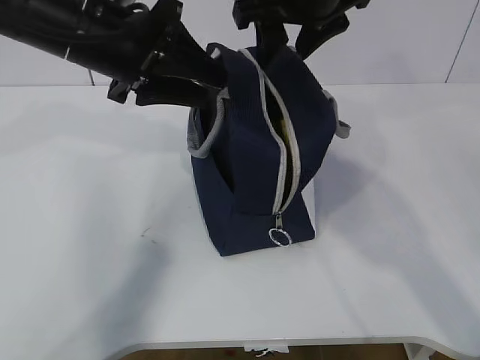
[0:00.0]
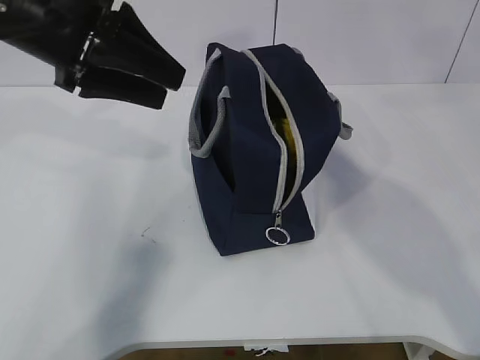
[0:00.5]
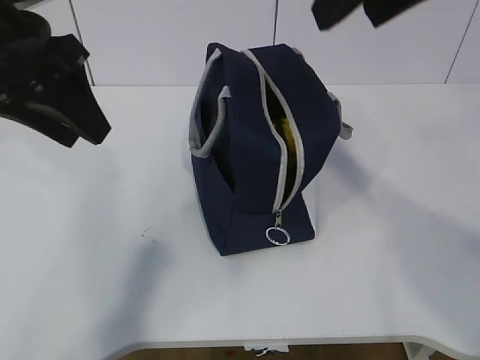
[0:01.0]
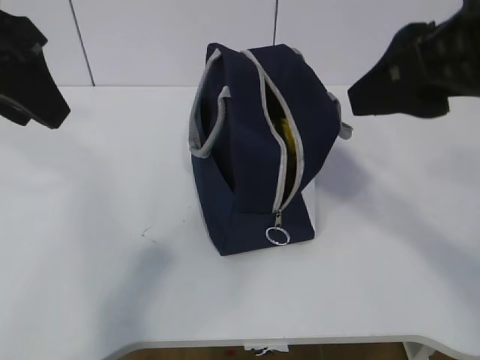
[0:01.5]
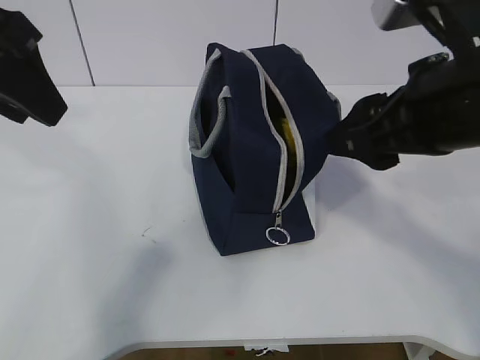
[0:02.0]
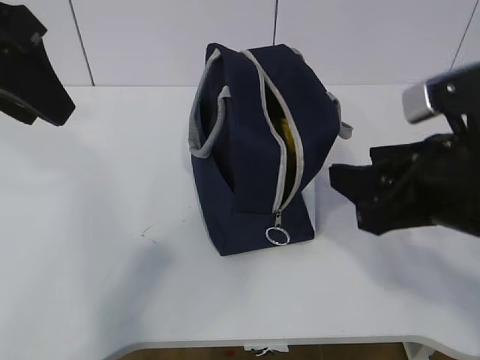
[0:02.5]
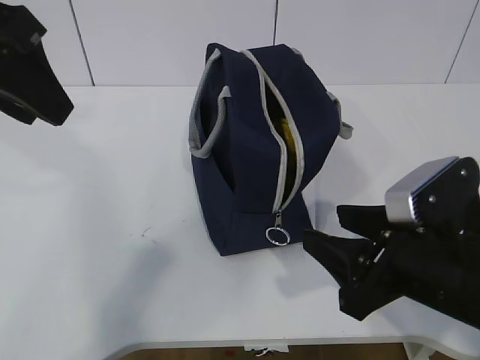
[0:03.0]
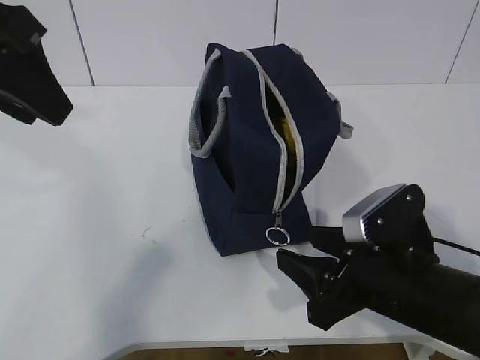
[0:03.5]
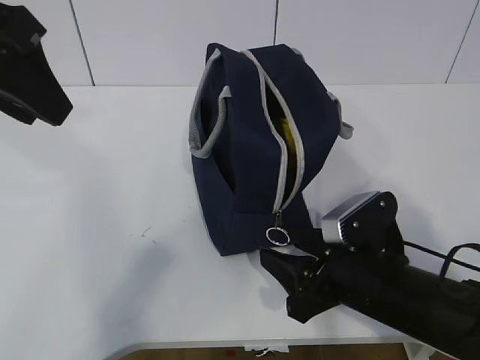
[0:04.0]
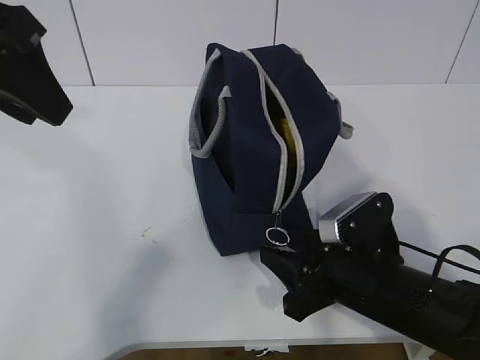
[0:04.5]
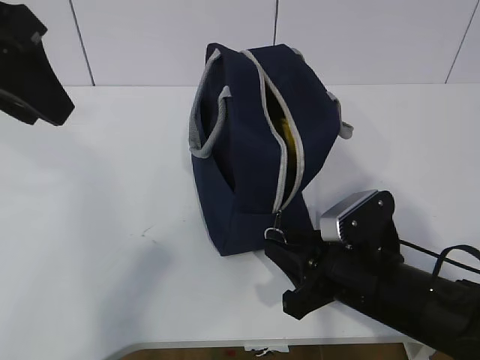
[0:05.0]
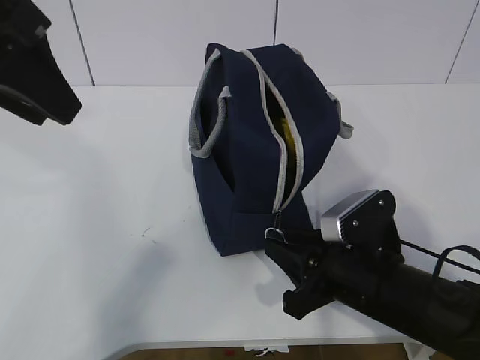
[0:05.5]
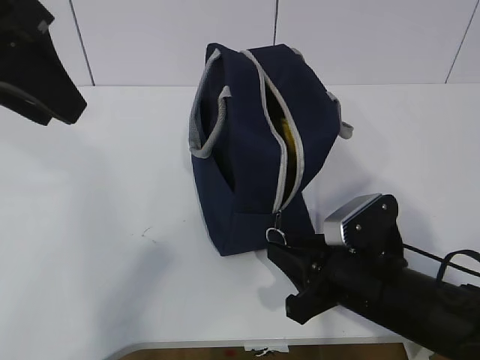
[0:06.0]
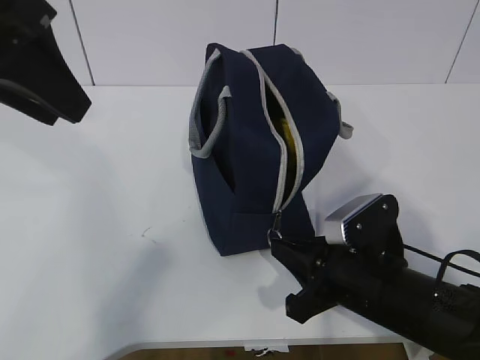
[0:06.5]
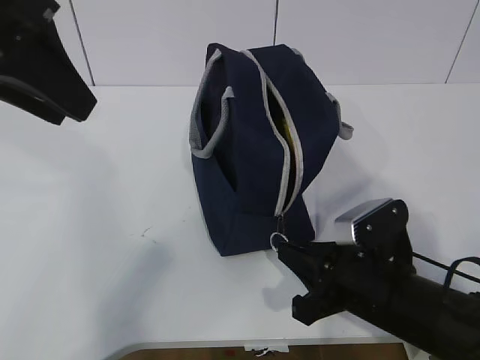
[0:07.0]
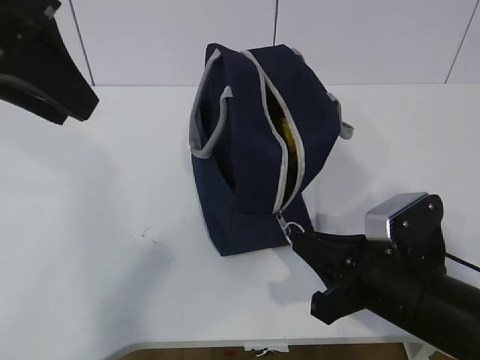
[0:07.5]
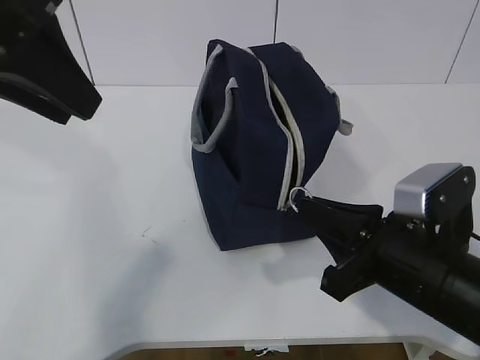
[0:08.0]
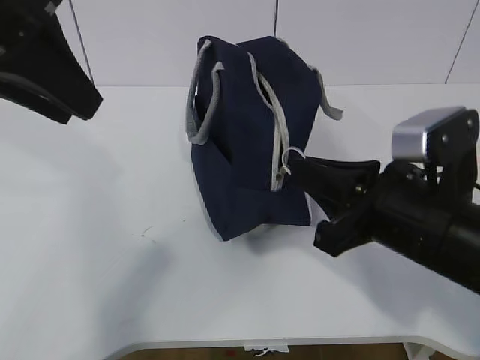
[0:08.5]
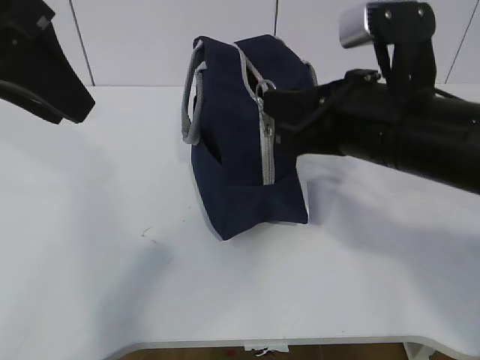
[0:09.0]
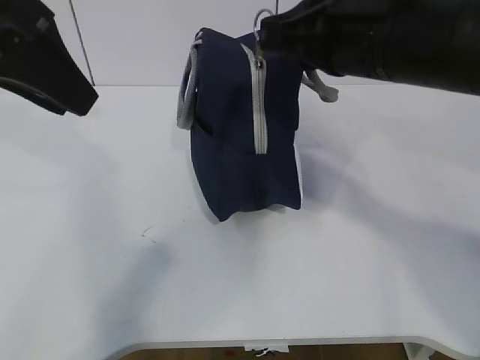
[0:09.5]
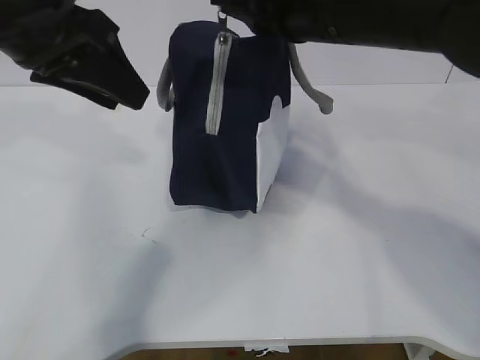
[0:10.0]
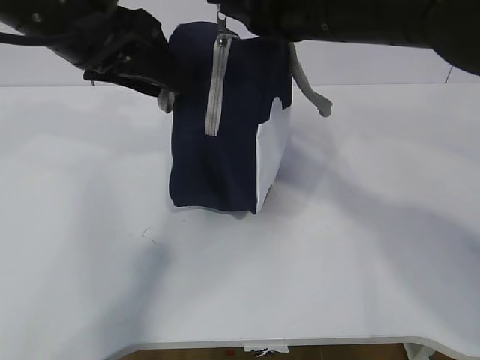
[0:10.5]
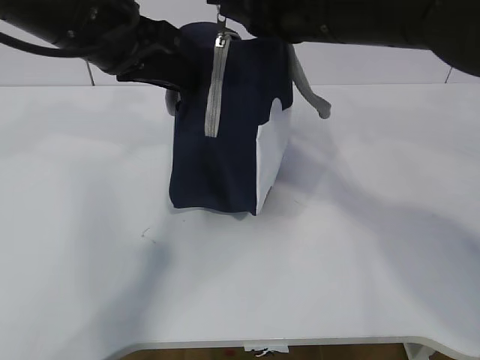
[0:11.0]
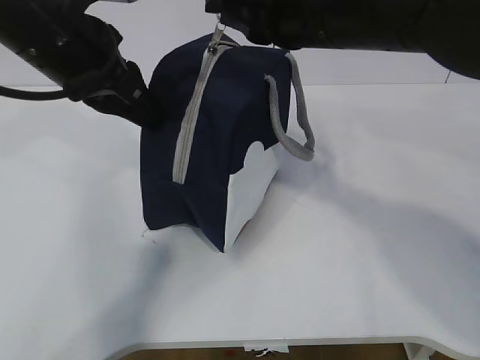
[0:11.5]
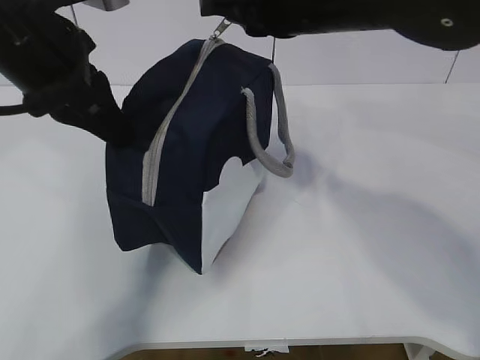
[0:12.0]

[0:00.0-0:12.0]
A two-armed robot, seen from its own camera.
Step, 0:00.0 to 0:04.5: Grab the lunch bag with your left hand.
Step, 0:05.5 to 0:08.0: Pull the zipper with your right hand.
Step, 0:08.5 to 0:10.0: Grab the lunch bag with your left hand.
0:00.0 to 0:02.0: The left gripper shifts roughly 15 cm backward, upward and to the left, while the right gripper heads backward and to the right, covering about 20 cm.
0:02.0 to 0:04.0: The right gripper heads downward, covering some 20 cm.
0:04.0 to 0:06.0: The right gripper closes up.
0:06.0 to 0:08.0: The right gripper moves upward, approximately 5 cm.
0:08.0 to 0:10.0: The left gripper changes place by some 5 cm, while the right gripper heads upward and forward, covering approximately 20 cm.
0:10.0 to 0:12.0: The left gripper closes up.

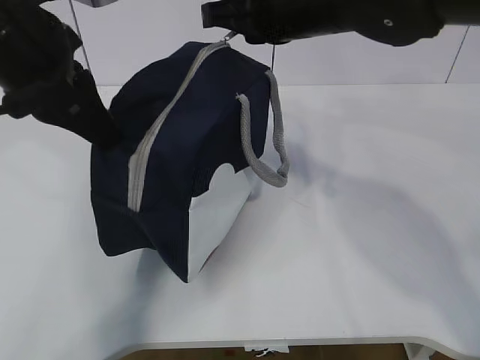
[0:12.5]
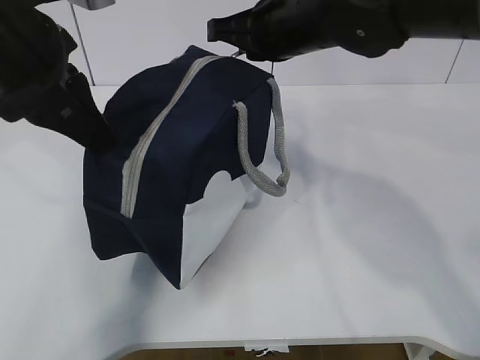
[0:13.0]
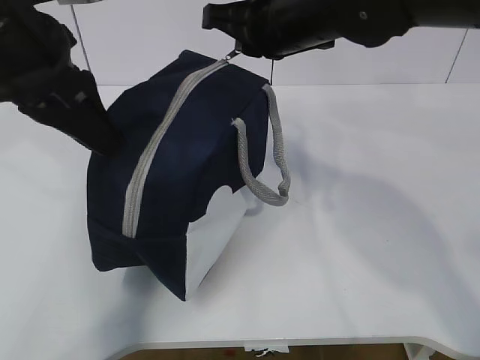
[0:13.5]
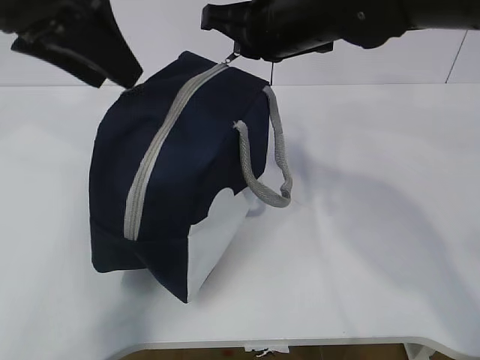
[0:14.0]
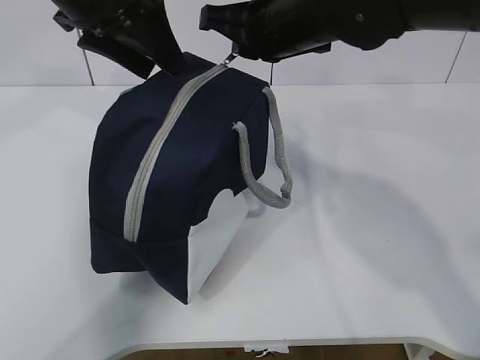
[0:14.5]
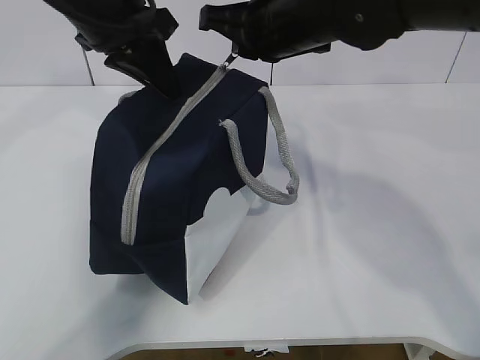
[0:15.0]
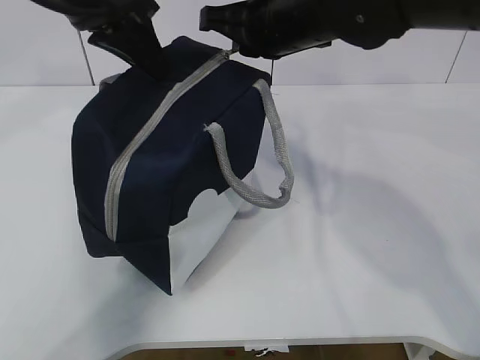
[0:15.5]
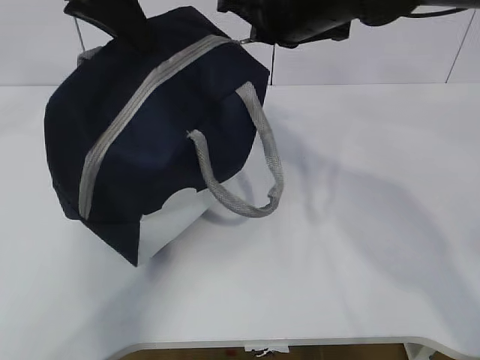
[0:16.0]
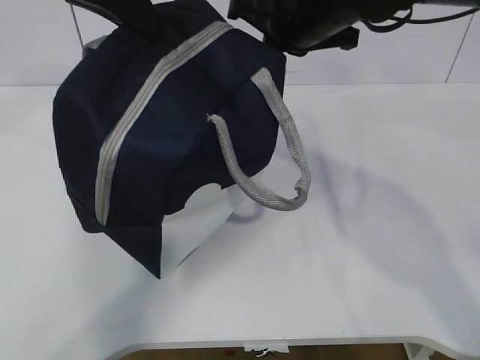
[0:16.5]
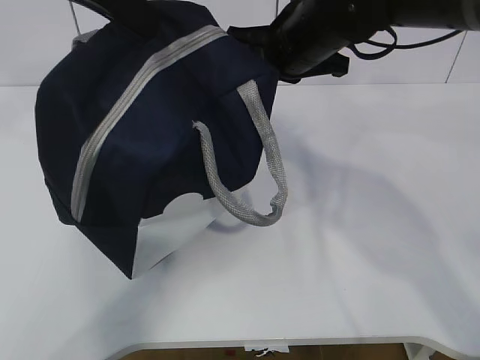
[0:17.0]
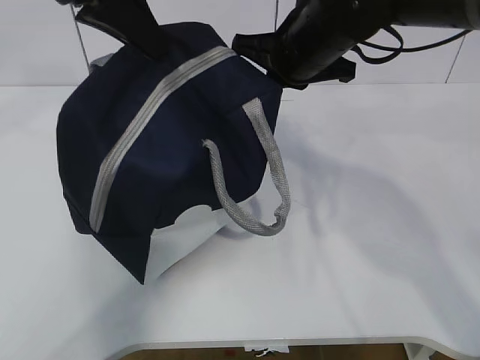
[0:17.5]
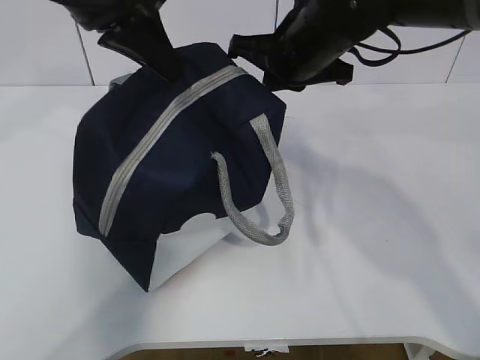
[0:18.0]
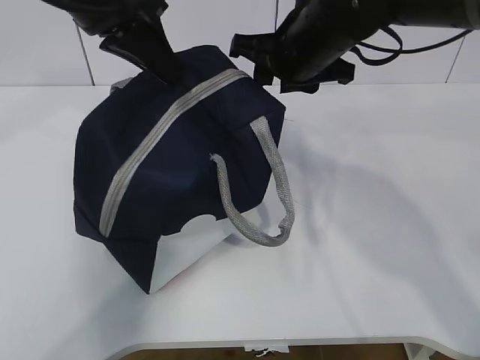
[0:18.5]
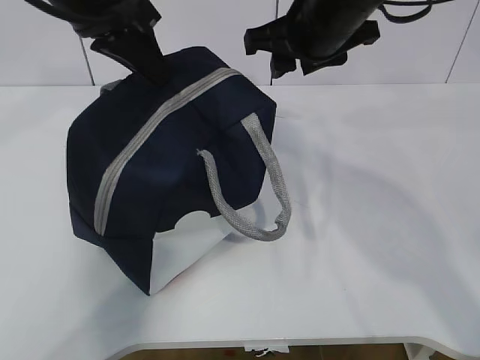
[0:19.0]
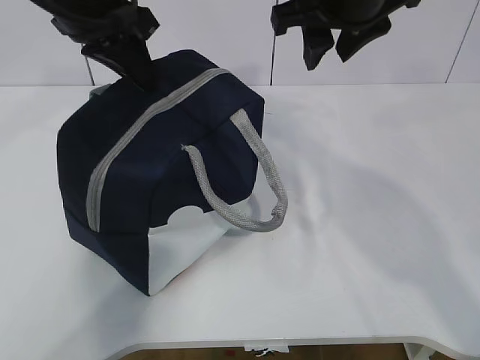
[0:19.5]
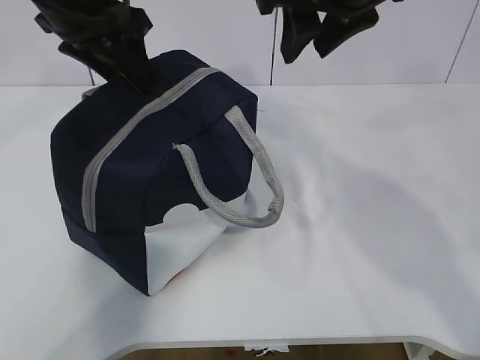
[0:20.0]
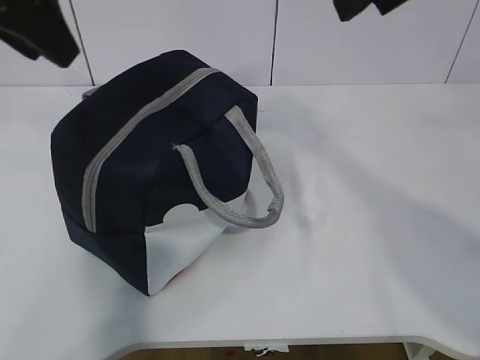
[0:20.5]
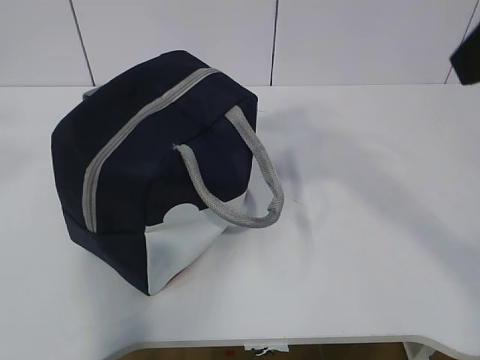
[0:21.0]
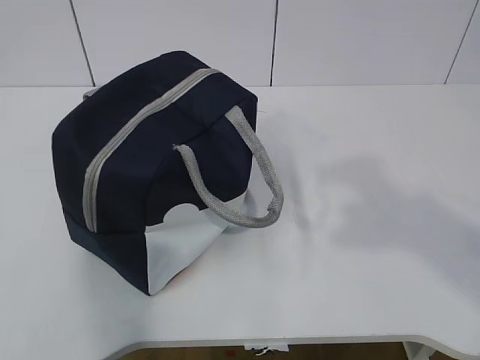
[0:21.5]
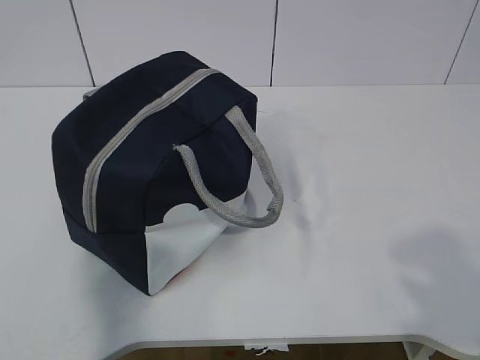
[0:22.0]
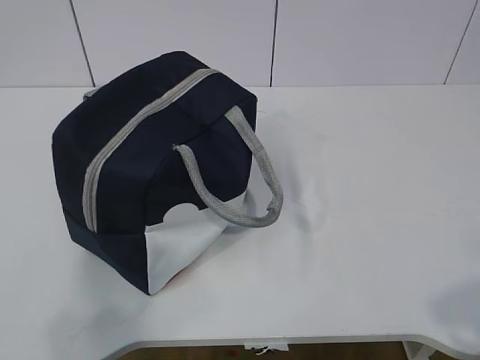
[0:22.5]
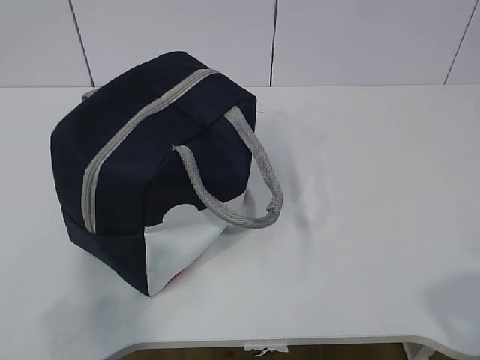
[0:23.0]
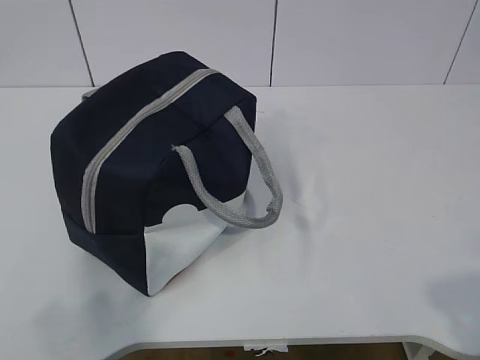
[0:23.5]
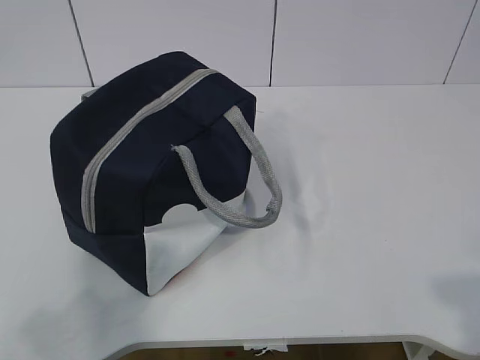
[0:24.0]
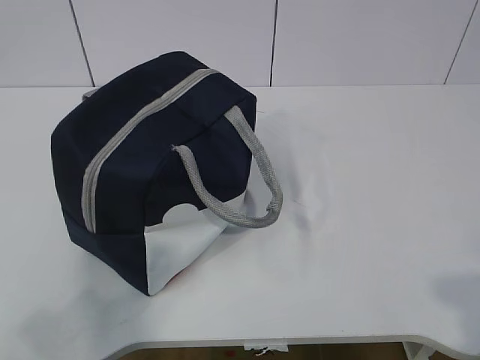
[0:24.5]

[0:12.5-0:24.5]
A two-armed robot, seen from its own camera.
0:12.5 to 0:14.5: The left gripper goes some 5 cm forward, and opens its fingers.
0:14.5 to 0:16.5: The left gripper moves approximately 5 cm, and closes up.
0:16.5 to 0:18.5: The left gripper ends up some 5 cm from where it was; the right gripper opens its fingers.
0:18.5 to 0:20.5: The right gripper heads upward and backward, covering about 20 cm. The left gripper heads backward and to the left, covering some 10 cm, and opens its fingers.
0:20.5 to 0:22.5: The right gripper goes roughly 40 cm backward, downward and to the right. Meanwhile the left gripper travels backward and to the left by approximately 35 cm.
